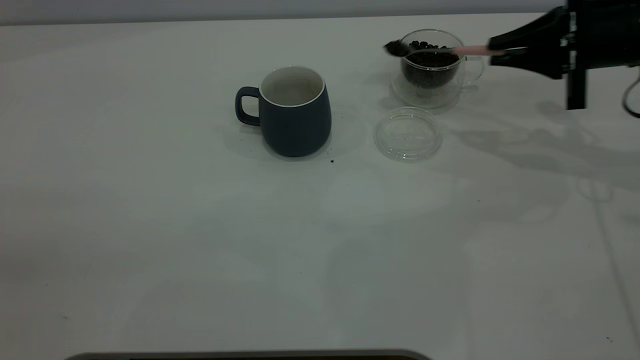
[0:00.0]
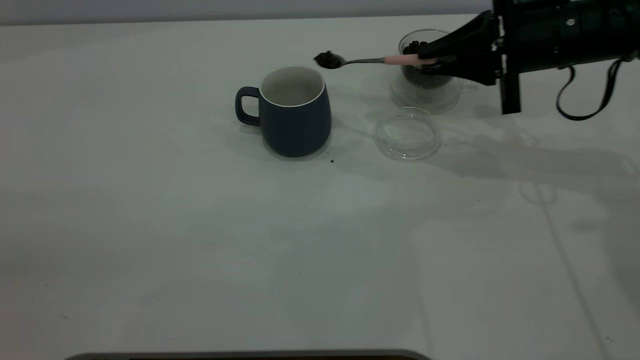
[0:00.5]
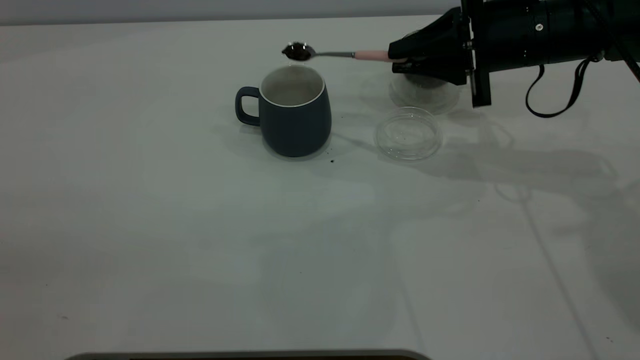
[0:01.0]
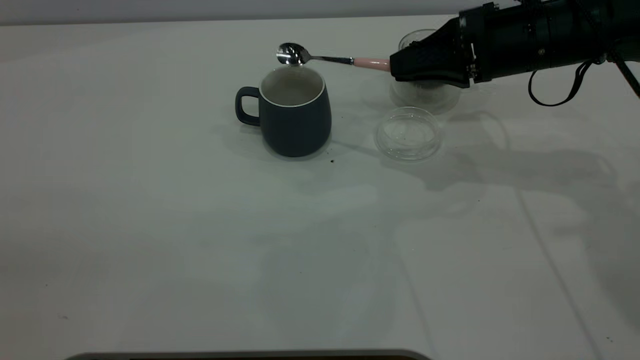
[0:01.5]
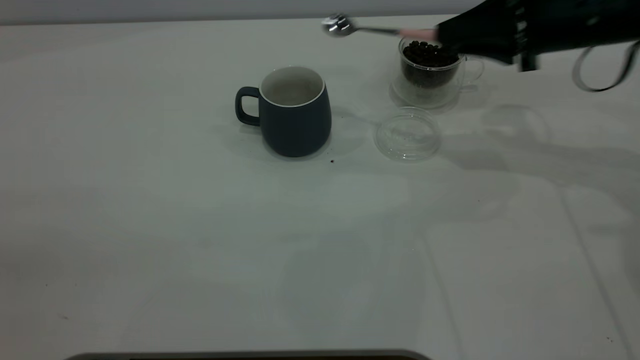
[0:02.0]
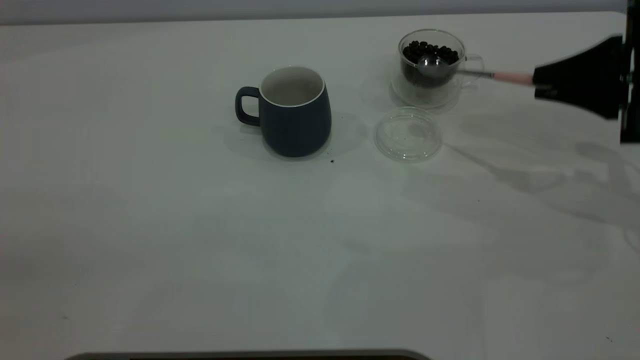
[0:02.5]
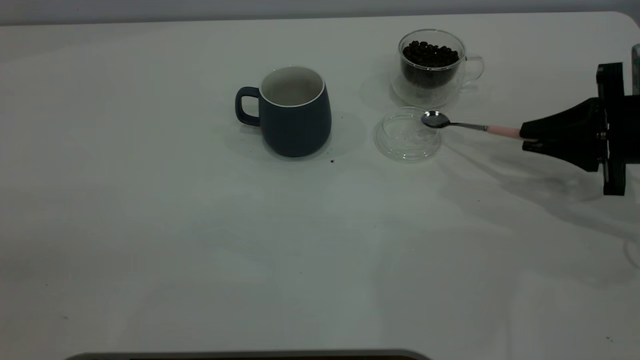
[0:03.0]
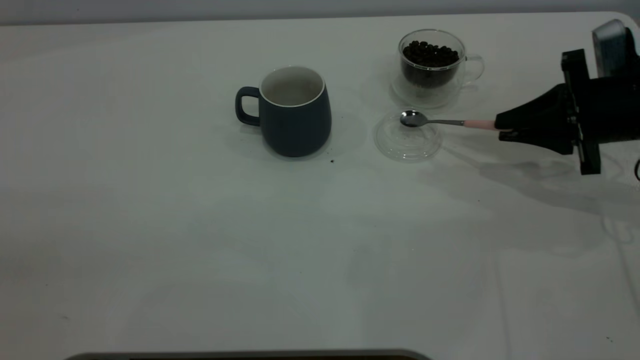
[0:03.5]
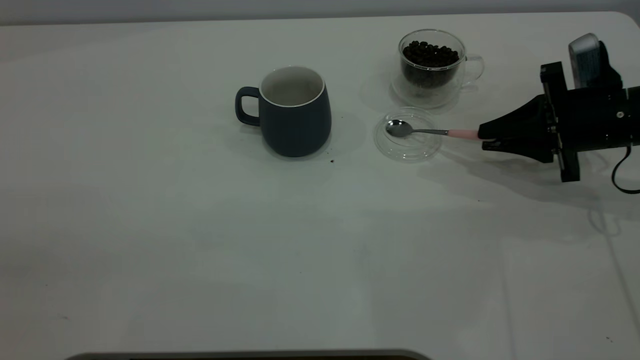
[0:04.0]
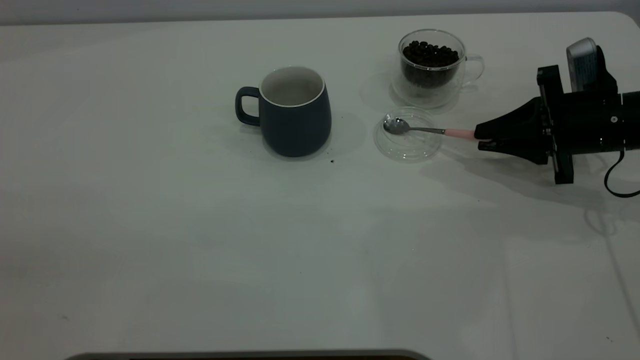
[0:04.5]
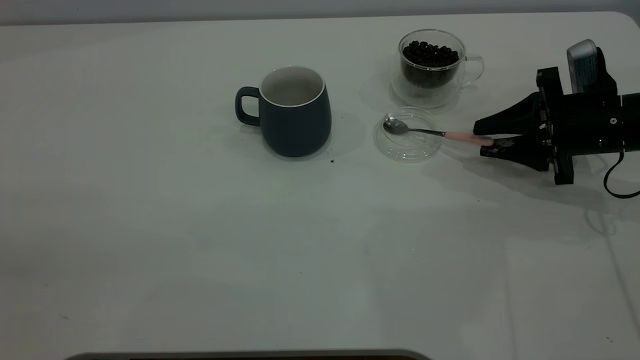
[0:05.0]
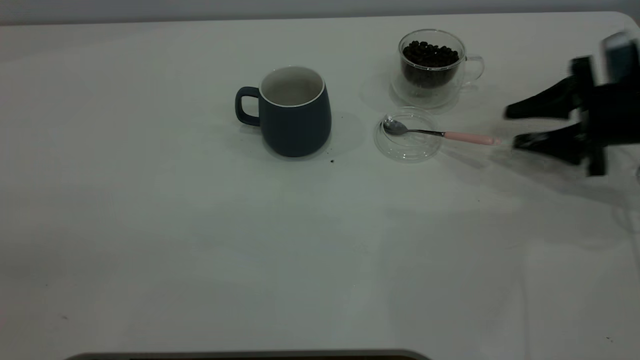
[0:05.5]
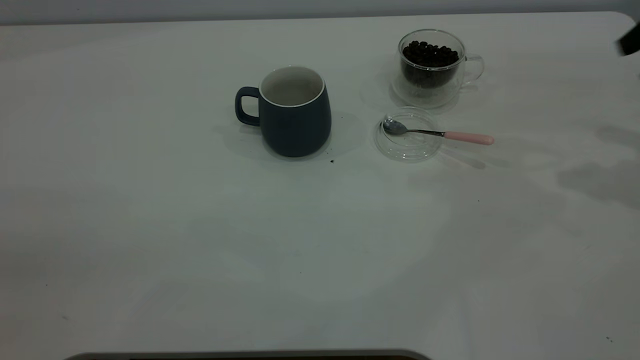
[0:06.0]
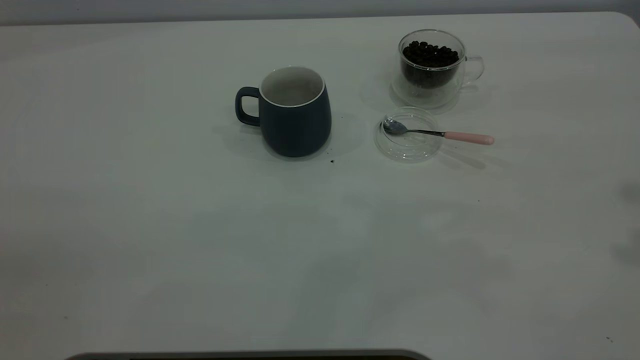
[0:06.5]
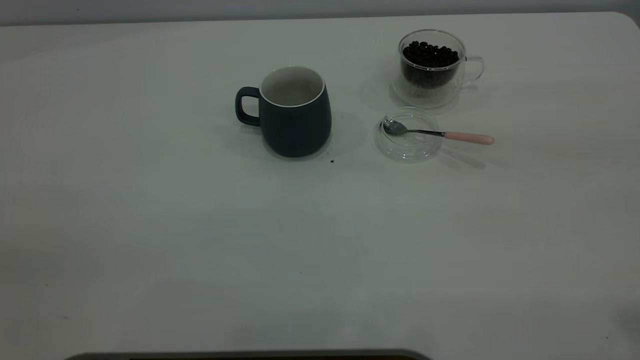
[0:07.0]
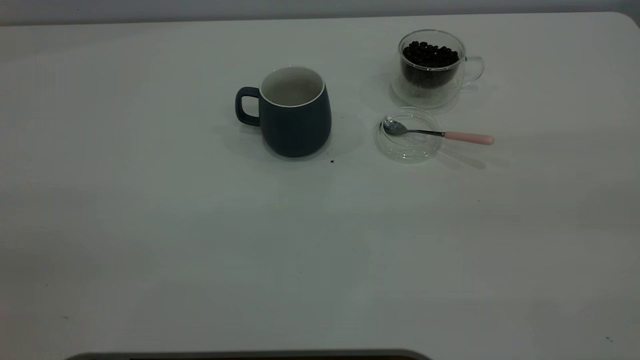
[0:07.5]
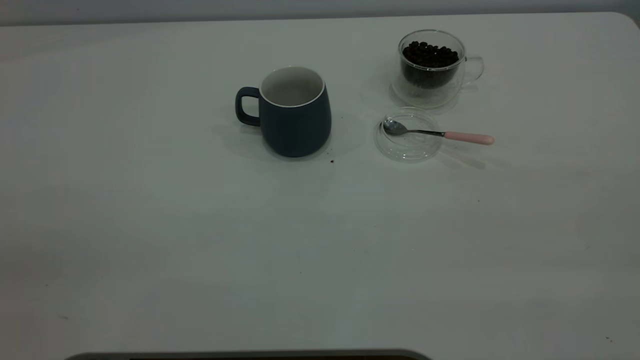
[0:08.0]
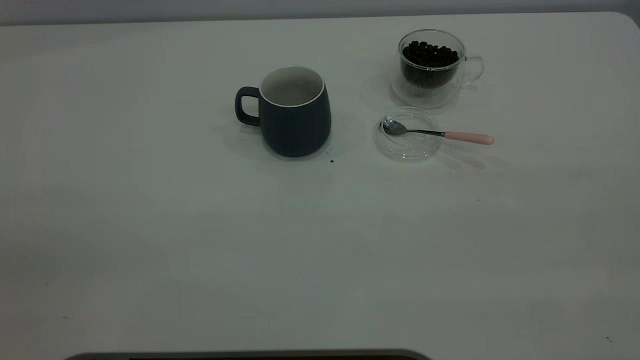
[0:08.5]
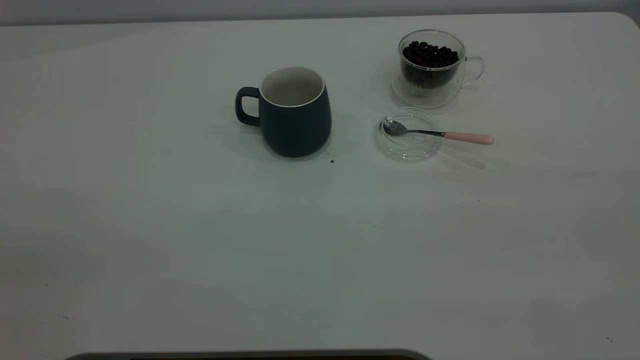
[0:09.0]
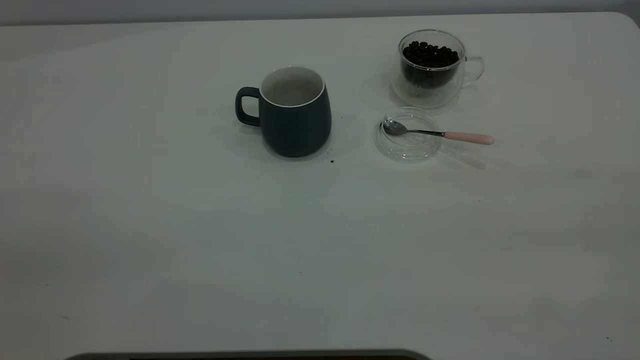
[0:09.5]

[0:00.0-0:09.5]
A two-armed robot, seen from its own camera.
Task of the whole recording: the left gripper place the grey cup in the center of the table, the right gripper take the pink spoon from the cup lid and scoop out the coffee beans from the coffee cup and put them into the grey cup, the right gripper put the spoon back into the cup lid.
Step, 0:02.0 to 0:05.5: Place the spoon back in its original place.
0:00.0 to 0:02.0: The right gripper travels to the left and back again, some 10 cm each way.
0:02.0 to 0:04.0: The right gripper moves downward, roughly 10 cm.
0:04.0 to 0:05.5: The right gripper opens up.
0:05.5 to 0:07.5: The right gripper heads backward and upward, covering roughly 40 cm.
